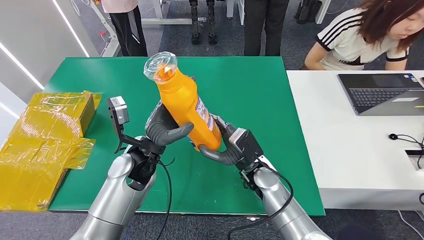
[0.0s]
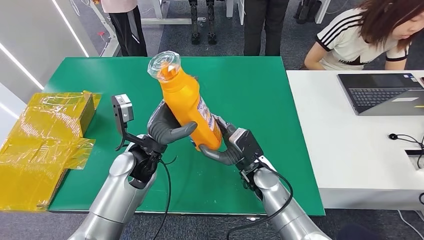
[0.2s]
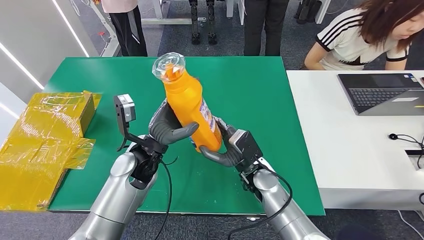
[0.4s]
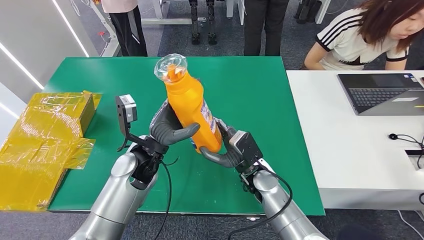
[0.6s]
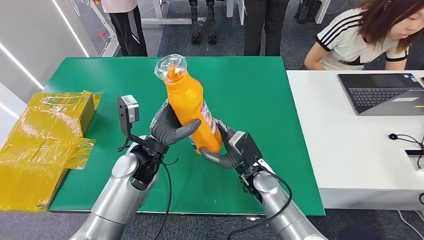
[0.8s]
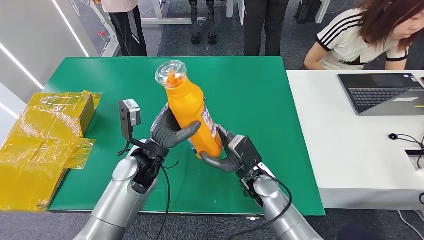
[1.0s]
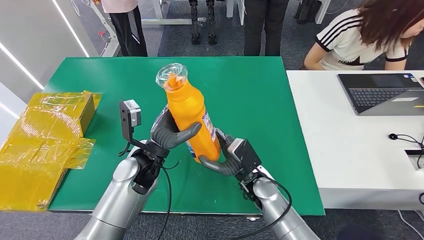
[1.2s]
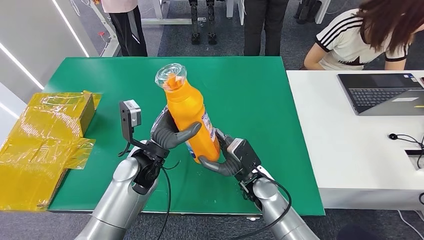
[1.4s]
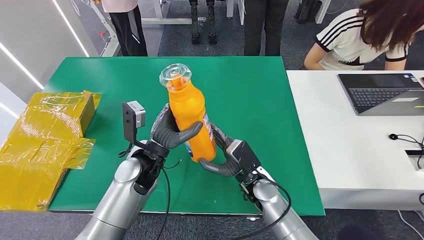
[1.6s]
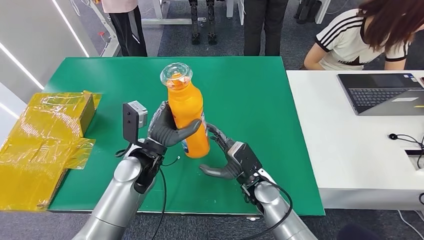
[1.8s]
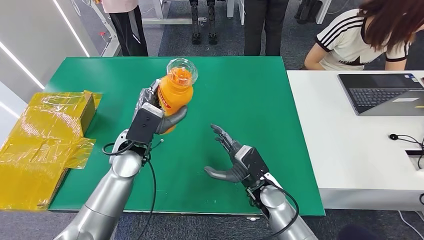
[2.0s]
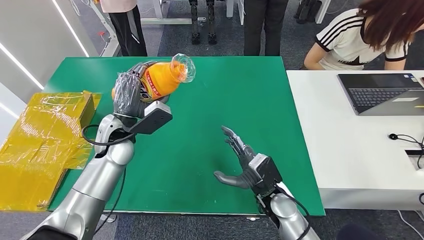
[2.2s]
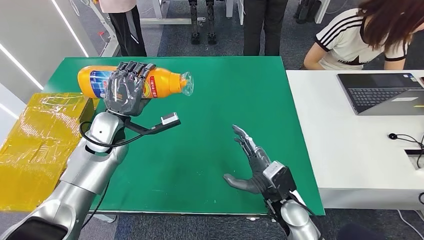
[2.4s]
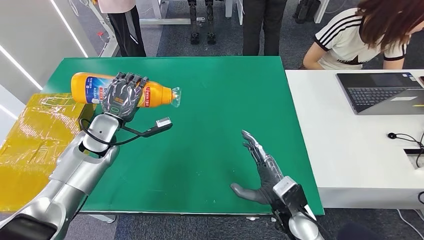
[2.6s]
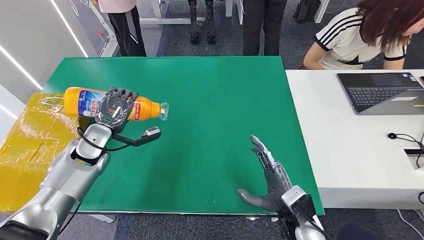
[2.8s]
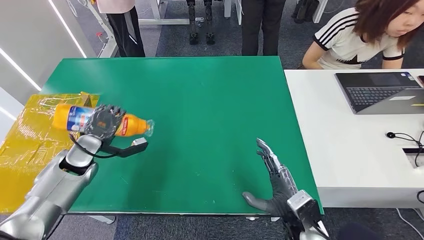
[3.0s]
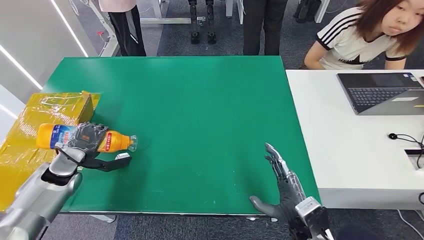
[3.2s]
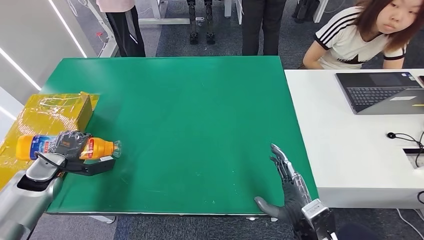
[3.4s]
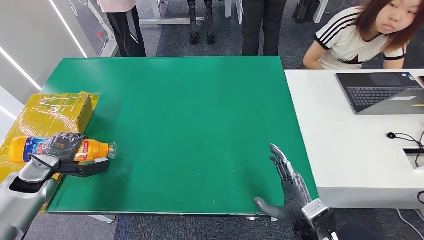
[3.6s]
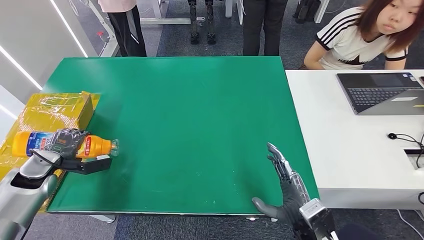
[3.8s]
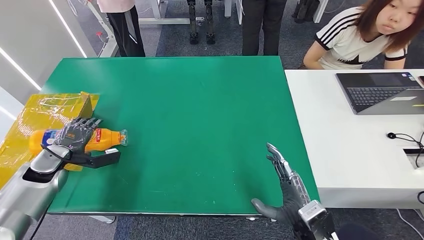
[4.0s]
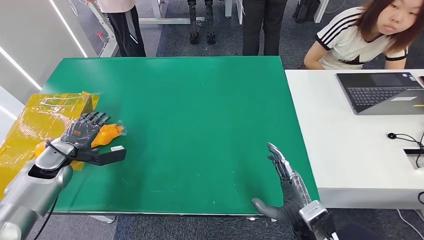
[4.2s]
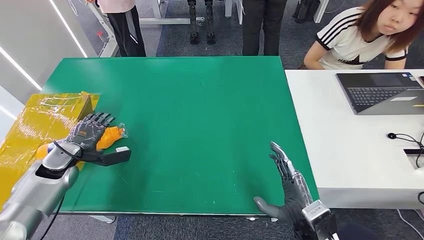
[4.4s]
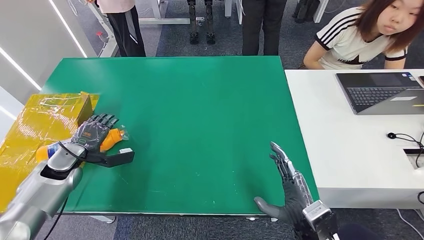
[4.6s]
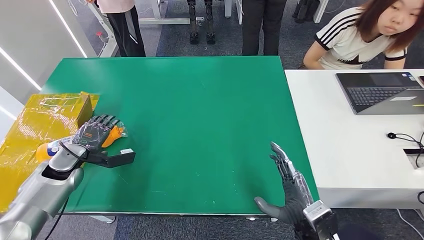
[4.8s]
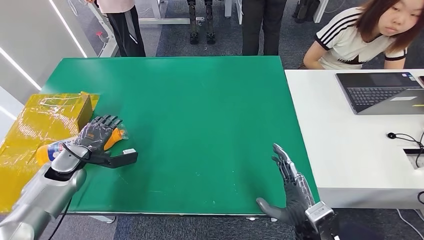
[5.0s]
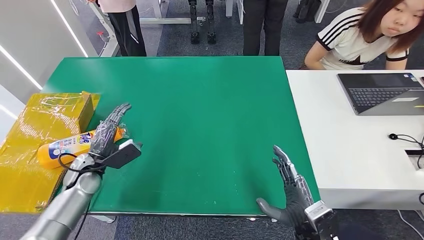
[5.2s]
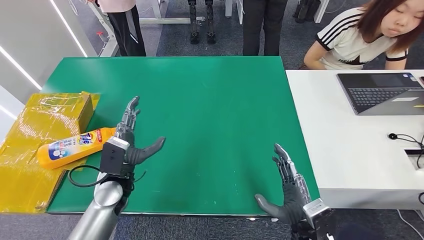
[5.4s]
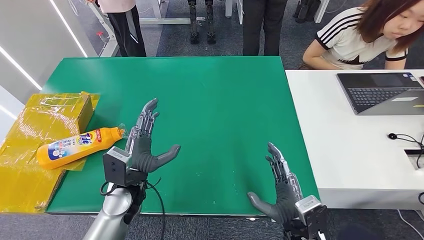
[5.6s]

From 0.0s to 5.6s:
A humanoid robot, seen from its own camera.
Step, from 0.0s to 5.6s: Turn the bottle to the front side.
From 0.0s to 1.4s: The hands move only a little.
From 2.8s to 4.2s: The left hand shifts about 10 cm to the left.
From 4.2s to 5.6s: The left hand travels to the right by approximately 25 cm.

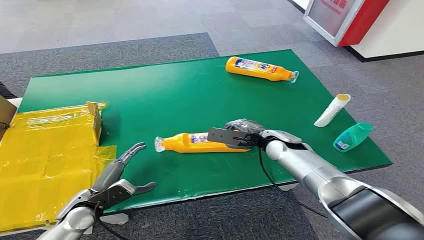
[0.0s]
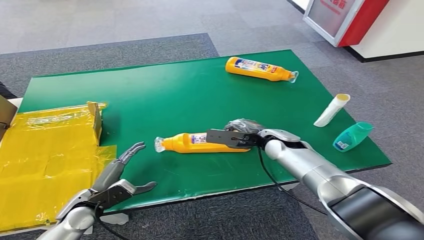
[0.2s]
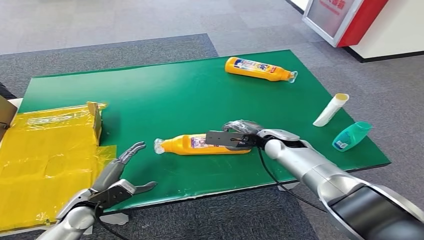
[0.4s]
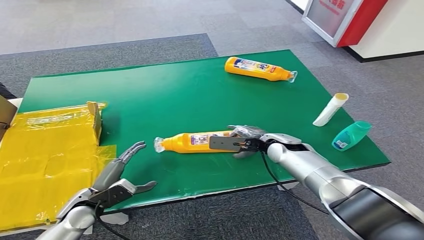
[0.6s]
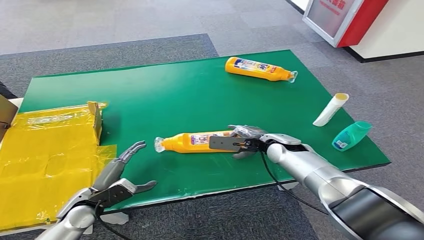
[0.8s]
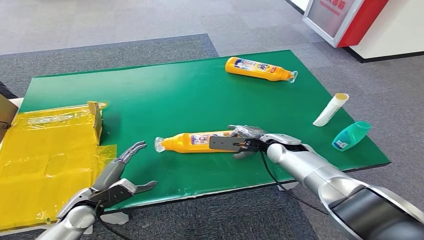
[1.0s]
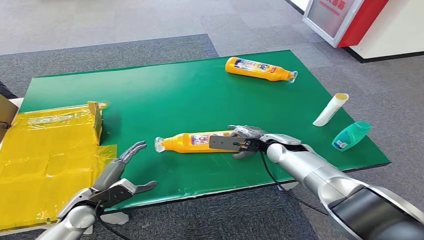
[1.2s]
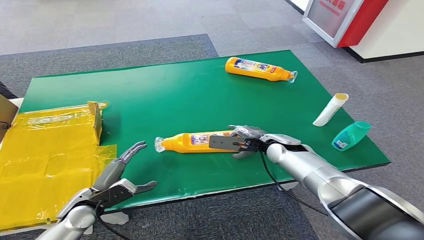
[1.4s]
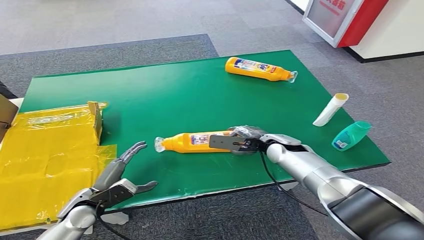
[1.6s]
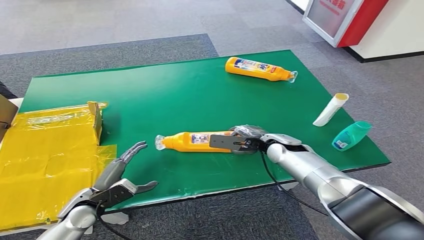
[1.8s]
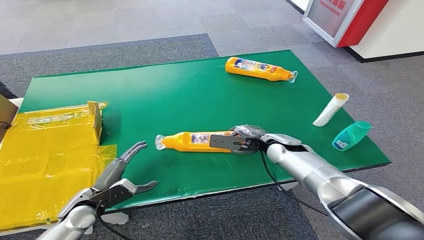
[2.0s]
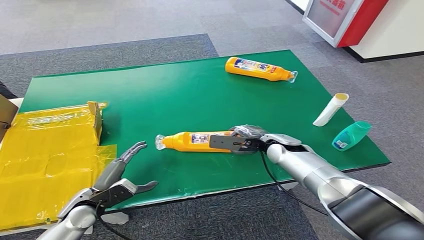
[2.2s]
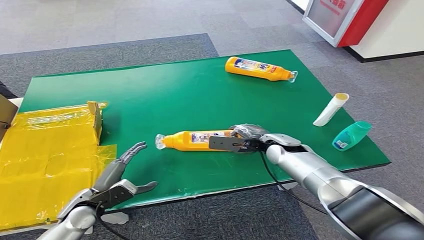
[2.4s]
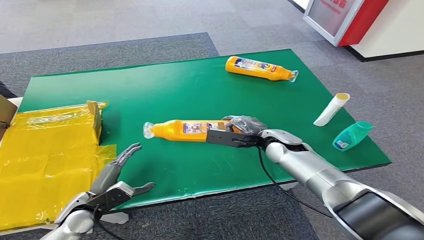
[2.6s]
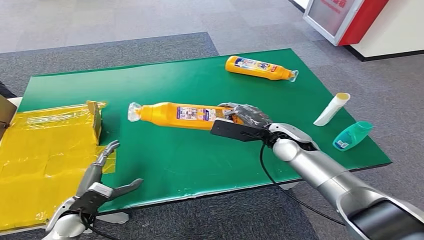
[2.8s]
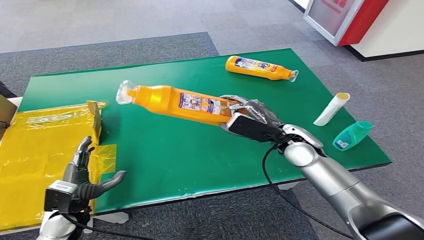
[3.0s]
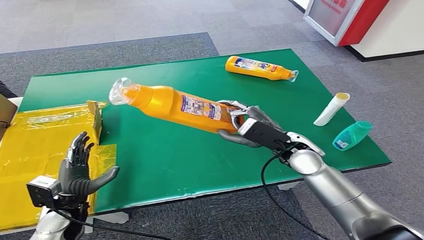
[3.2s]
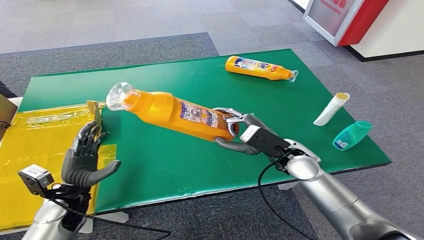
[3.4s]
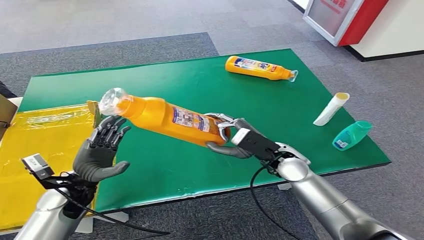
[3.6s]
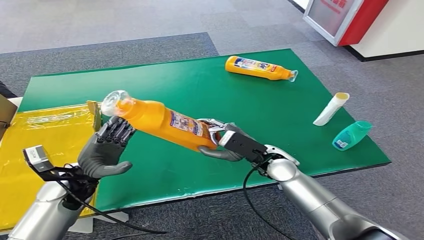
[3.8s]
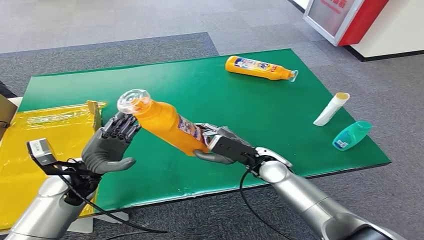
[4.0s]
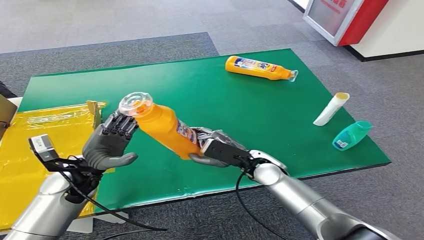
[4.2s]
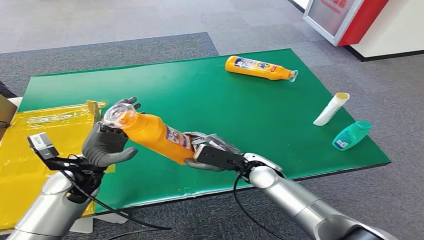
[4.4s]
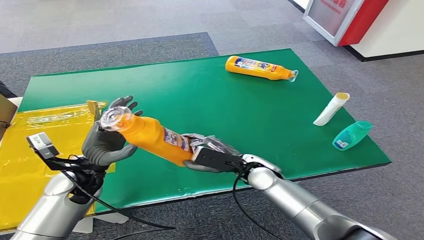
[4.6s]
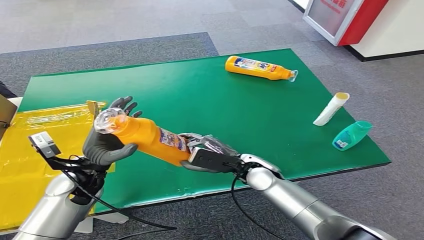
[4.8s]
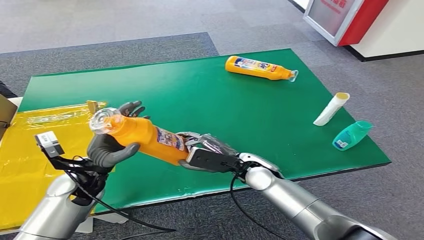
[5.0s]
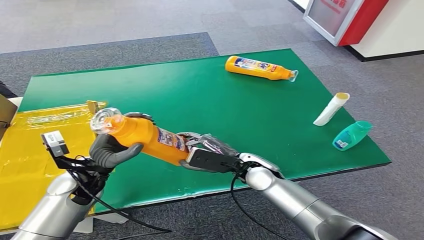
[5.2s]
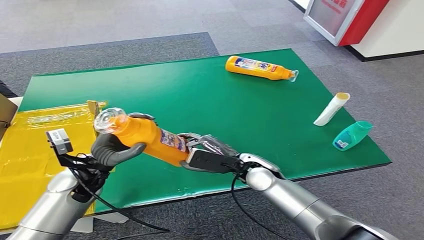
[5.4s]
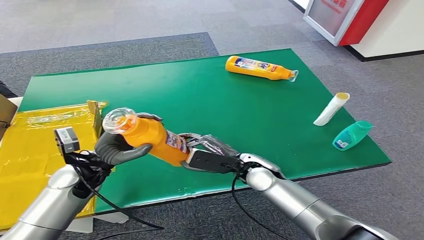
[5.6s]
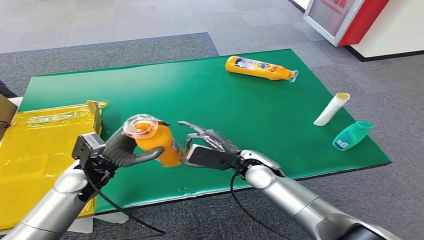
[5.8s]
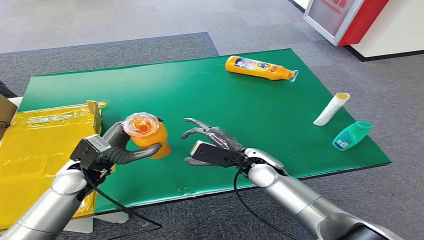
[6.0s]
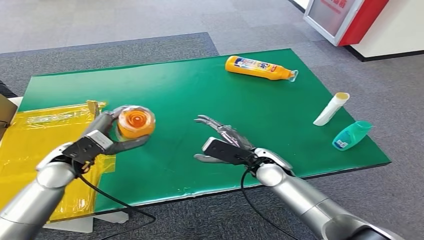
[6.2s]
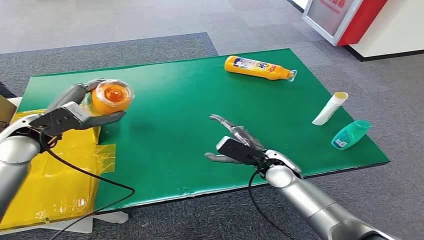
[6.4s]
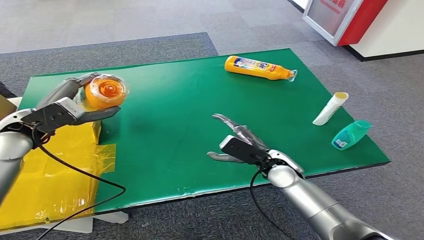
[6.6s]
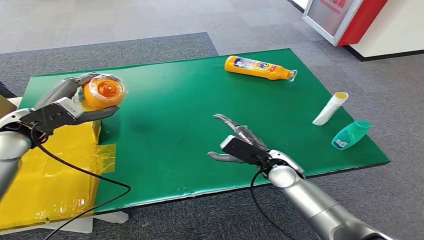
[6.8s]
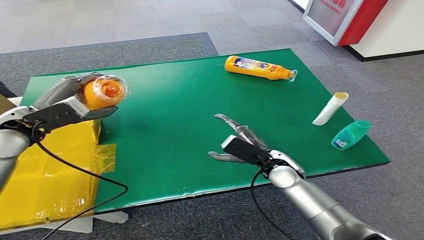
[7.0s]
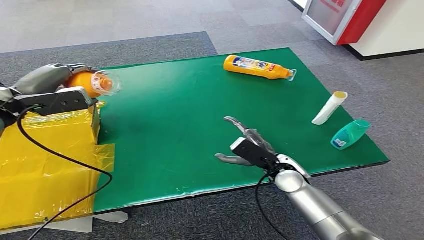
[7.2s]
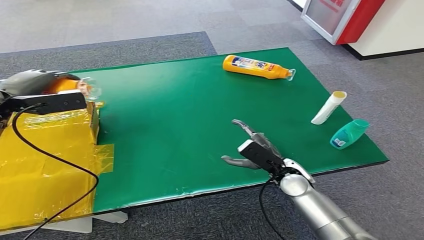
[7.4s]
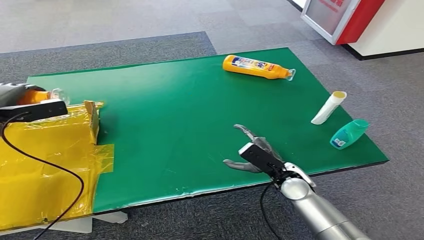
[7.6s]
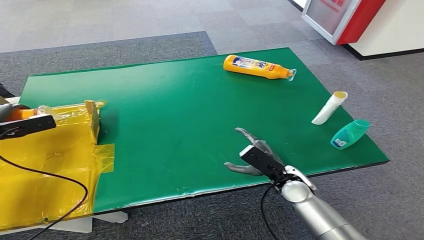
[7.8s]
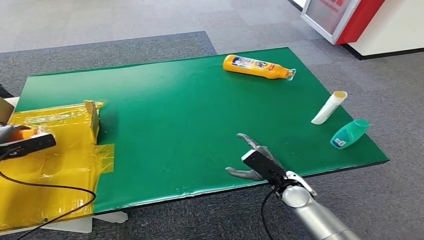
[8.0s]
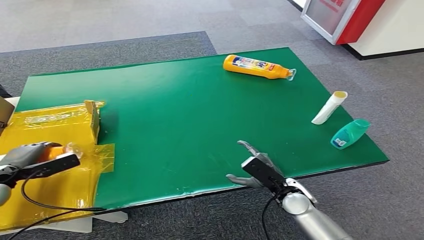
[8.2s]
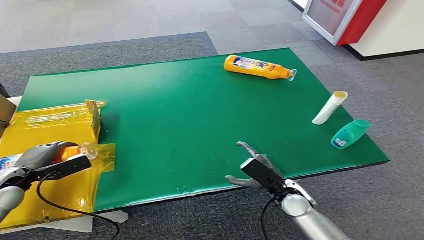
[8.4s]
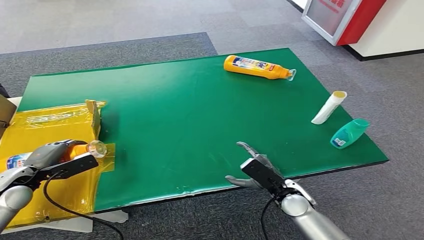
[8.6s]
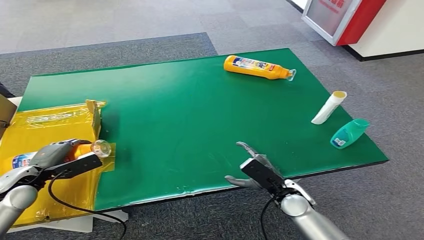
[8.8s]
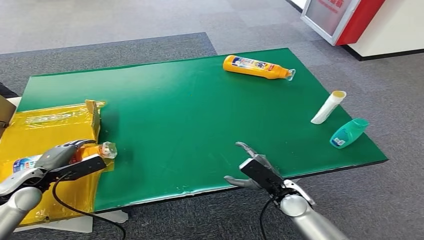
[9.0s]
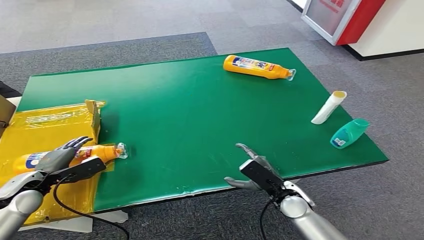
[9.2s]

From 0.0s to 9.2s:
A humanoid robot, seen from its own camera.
Step, from 0.0s to 3.4s: Pick up the bottle from the table.
Step, from 3.6s to 9.2s: Turn the bottle to the front side.
From 7.6s to 9.2s: The left hand shifts some 20 cm downward and backward; the right hand ends up roughly 5 cm from where it was.
